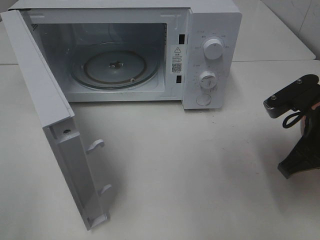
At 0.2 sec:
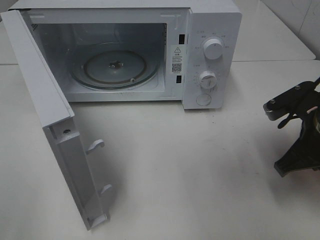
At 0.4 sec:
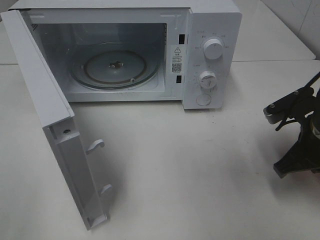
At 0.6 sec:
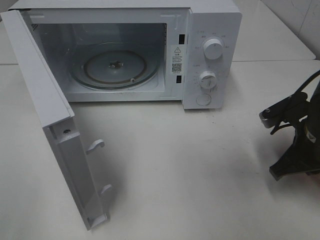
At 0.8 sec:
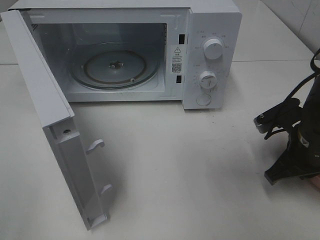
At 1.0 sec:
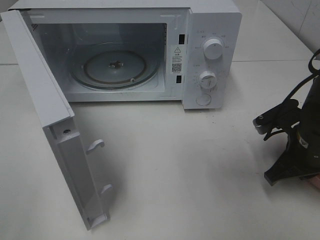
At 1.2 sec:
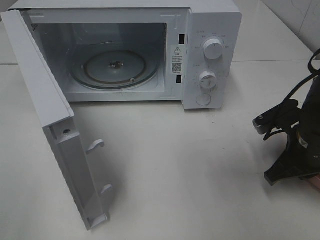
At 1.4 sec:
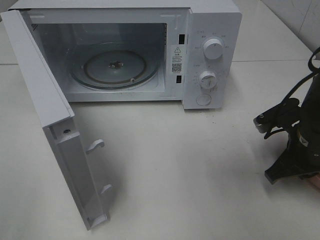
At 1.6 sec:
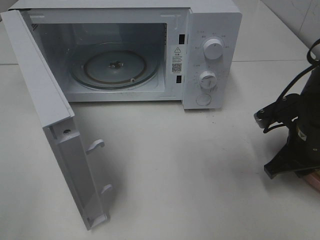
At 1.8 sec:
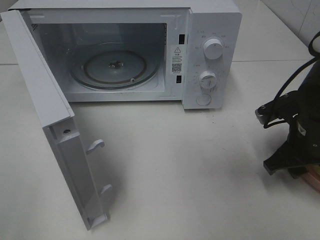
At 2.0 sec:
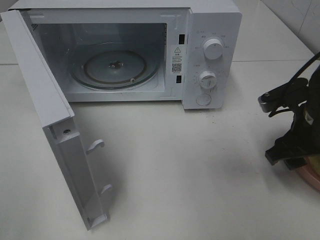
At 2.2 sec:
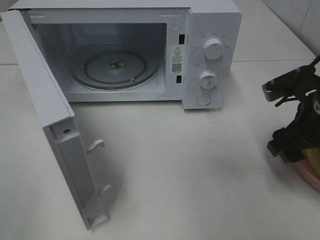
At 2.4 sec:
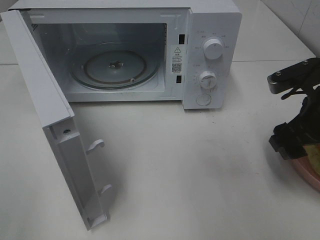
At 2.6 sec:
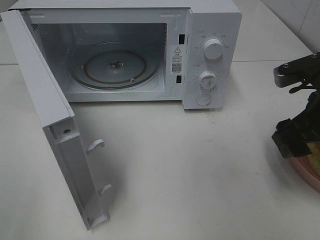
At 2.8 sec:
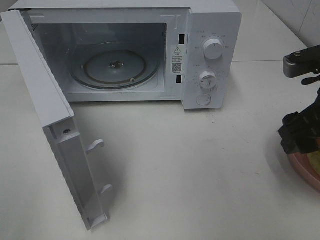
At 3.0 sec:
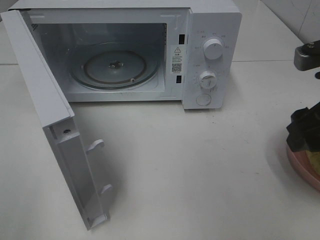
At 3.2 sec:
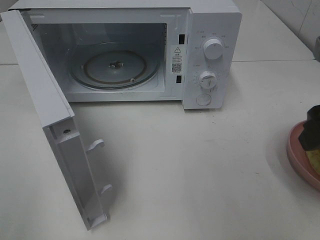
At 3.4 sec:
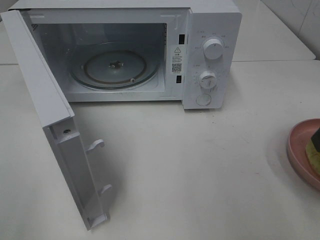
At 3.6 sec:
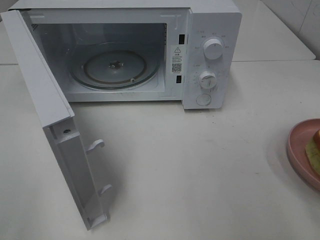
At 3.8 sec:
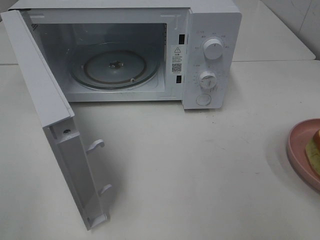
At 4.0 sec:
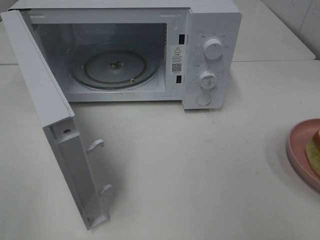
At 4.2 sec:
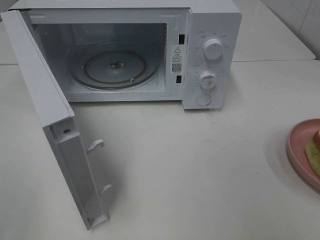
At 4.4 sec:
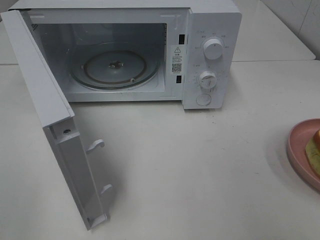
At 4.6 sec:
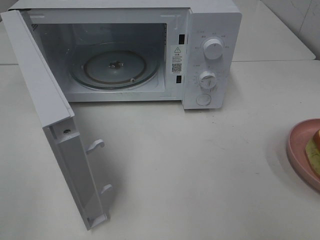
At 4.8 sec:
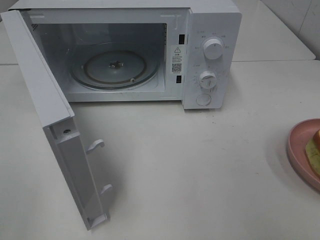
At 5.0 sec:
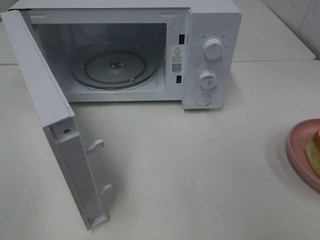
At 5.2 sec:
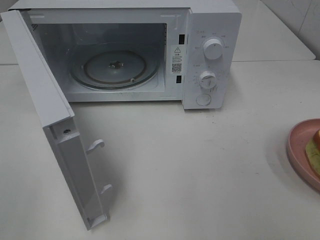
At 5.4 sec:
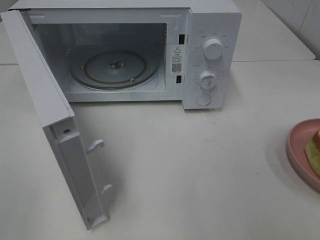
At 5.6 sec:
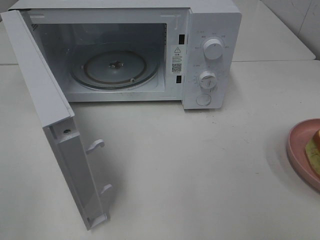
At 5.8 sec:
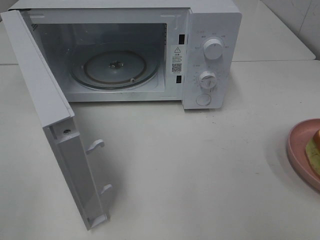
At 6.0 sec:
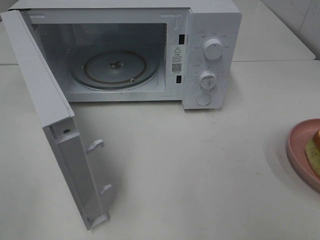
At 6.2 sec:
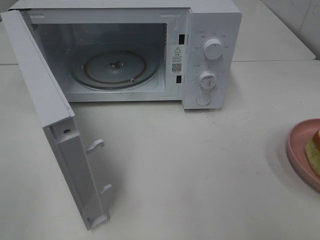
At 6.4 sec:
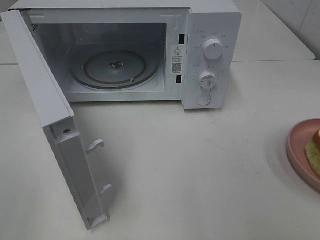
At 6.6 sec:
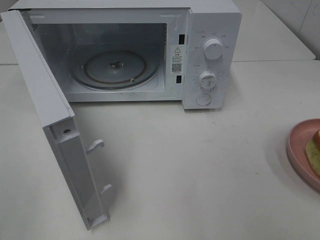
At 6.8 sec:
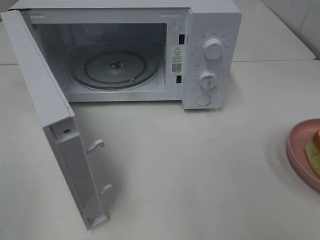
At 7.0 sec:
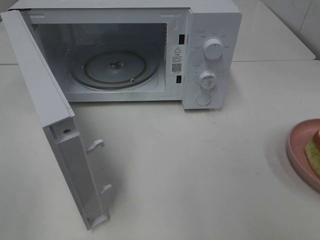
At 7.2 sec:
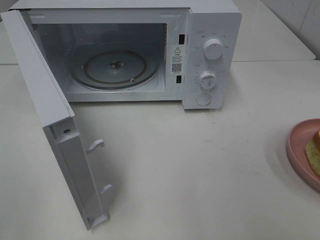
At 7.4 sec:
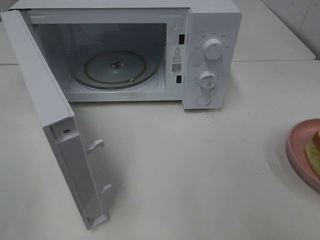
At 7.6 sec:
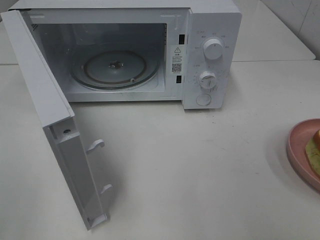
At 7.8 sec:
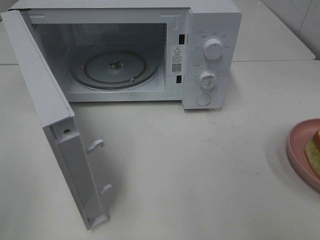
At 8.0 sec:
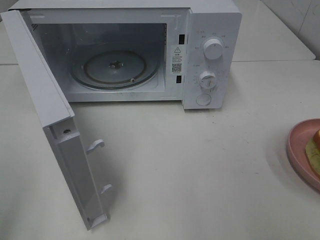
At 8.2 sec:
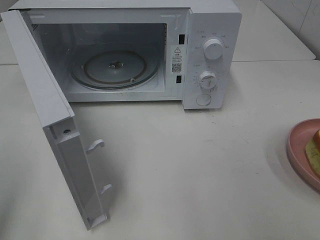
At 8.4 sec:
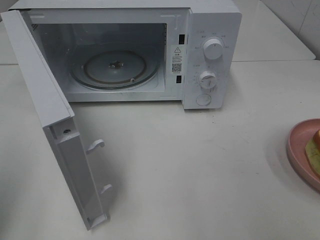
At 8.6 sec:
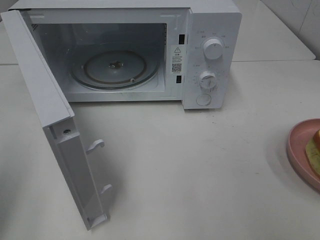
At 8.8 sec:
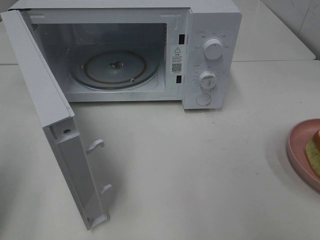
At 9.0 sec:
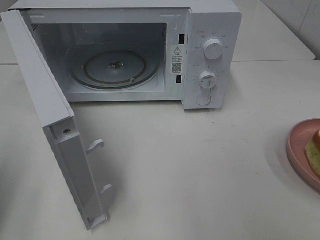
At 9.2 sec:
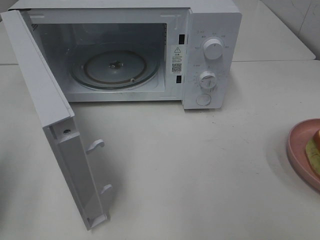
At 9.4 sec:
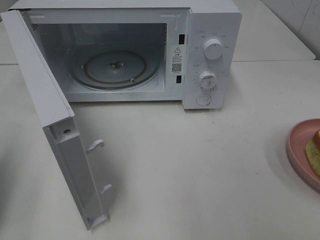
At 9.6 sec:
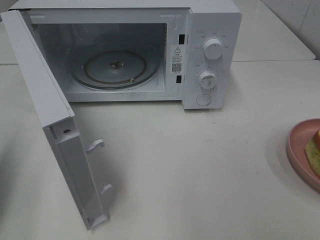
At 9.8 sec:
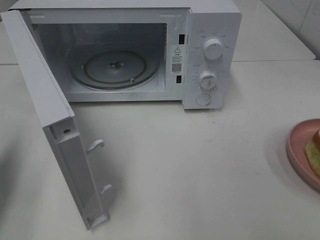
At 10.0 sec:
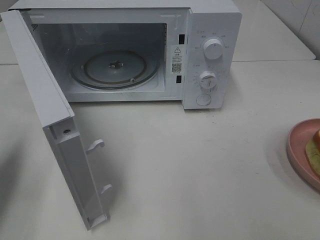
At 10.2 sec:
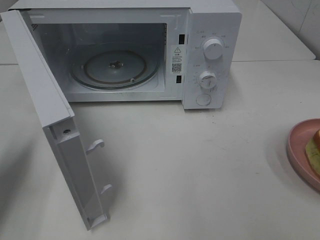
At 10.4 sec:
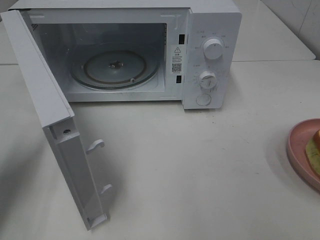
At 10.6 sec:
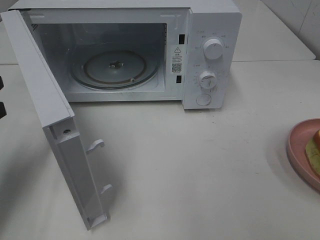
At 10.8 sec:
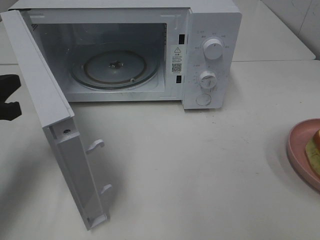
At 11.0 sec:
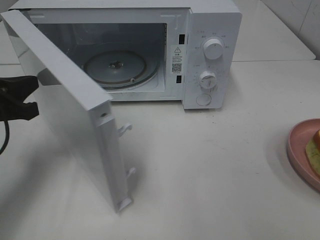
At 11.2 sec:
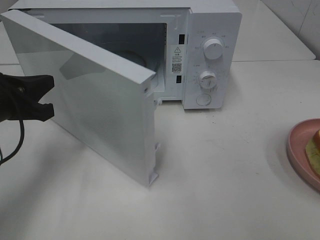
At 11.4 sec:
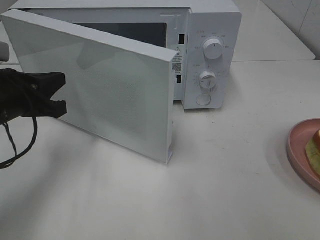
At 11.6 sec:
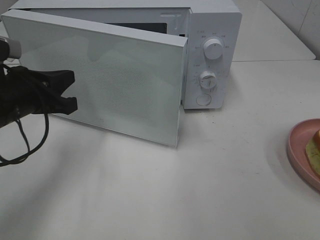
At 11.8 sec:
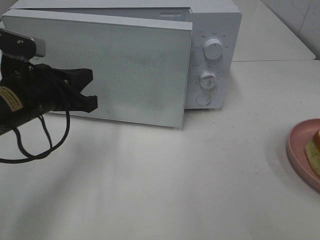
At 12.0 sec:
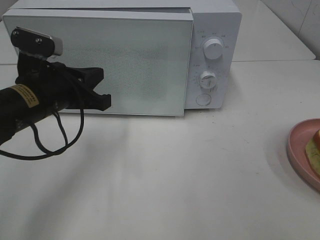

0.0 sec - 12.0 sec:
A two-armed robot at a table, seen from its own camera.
Task of the whole recording: Heat Sandwich.
Step, 0.0 sec - 2.4 sec: Right hand: place the plate on the table.
0.0 sec - 1.6 sec: The right gripper is displaced downward by some 5 cm.
1.6 sec - 3.0 sec: The right gripper goes some 15 cm upward and backward, and opens up.
3.0 sec - 4.4 sec: The right gripper shifts approximately 15 cm backward.
6.0 sec - 7.6 sec: The two grippers keep their place.
9.0 sec - 10.4 sec: The left gripper goes some 10 cm forward and downward.
10.4 sec - 12.0 sec: The left gripper shifts approximately 15 cm to the right.

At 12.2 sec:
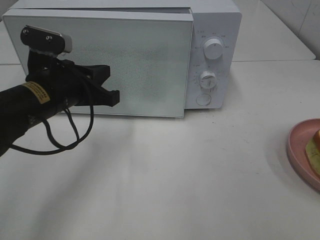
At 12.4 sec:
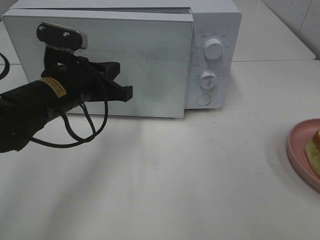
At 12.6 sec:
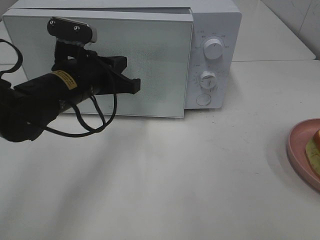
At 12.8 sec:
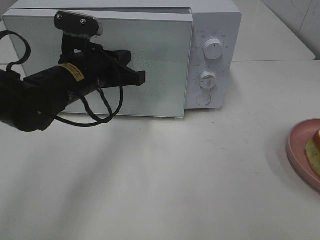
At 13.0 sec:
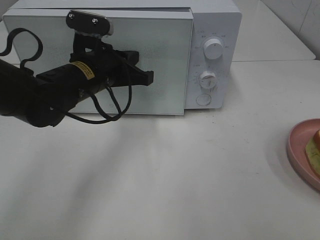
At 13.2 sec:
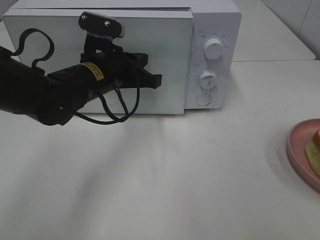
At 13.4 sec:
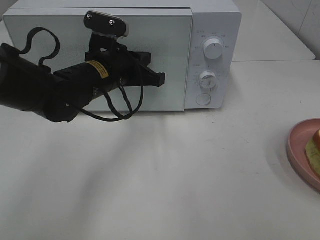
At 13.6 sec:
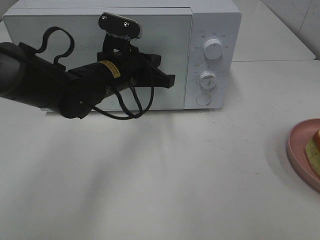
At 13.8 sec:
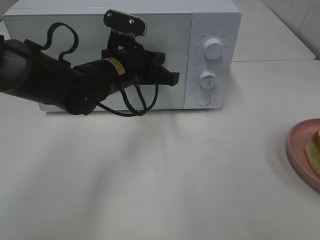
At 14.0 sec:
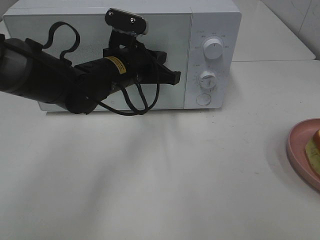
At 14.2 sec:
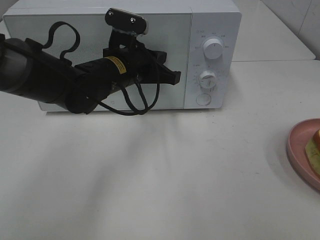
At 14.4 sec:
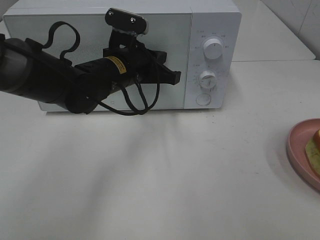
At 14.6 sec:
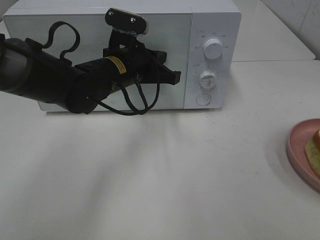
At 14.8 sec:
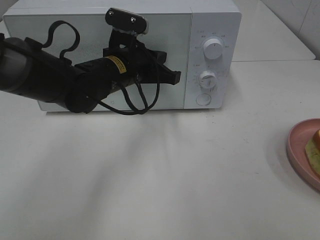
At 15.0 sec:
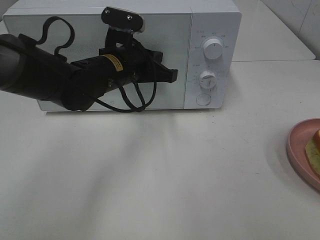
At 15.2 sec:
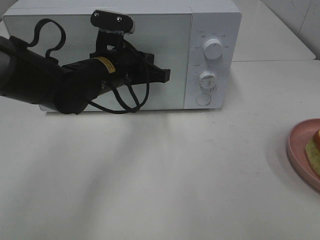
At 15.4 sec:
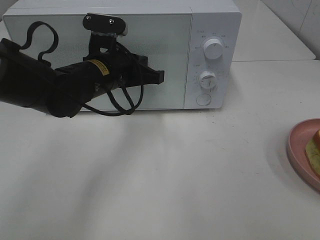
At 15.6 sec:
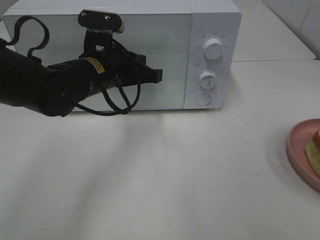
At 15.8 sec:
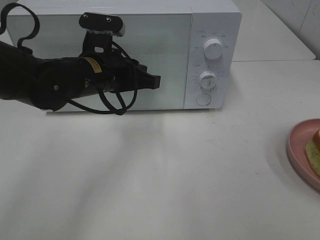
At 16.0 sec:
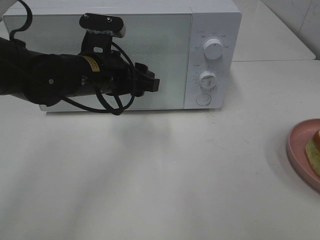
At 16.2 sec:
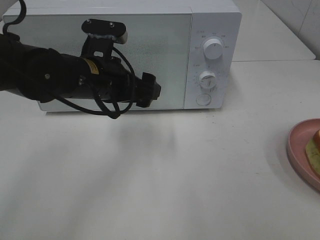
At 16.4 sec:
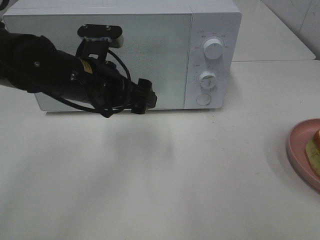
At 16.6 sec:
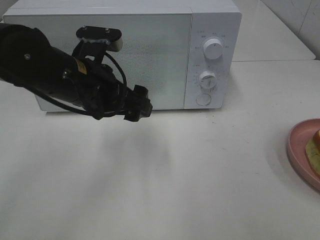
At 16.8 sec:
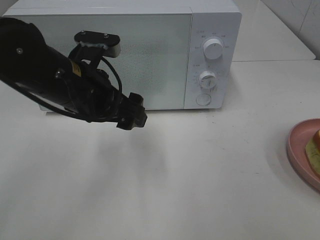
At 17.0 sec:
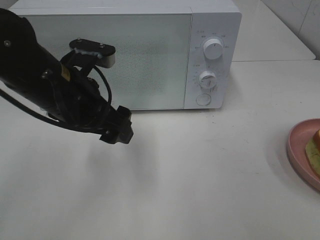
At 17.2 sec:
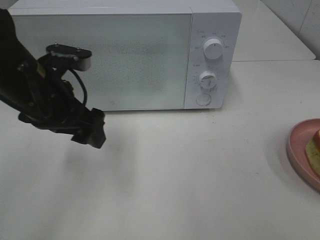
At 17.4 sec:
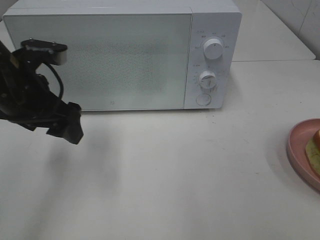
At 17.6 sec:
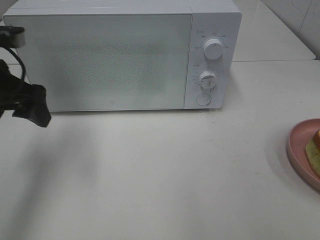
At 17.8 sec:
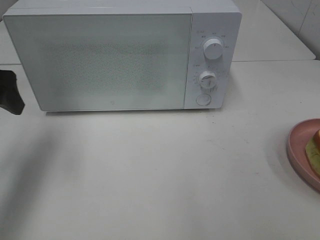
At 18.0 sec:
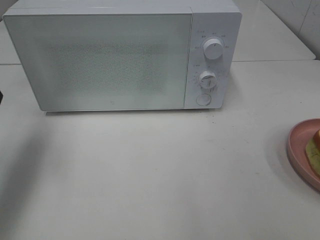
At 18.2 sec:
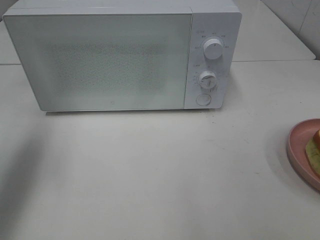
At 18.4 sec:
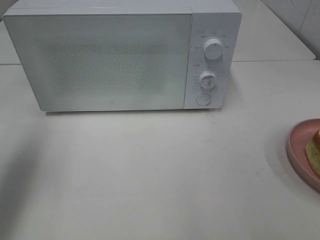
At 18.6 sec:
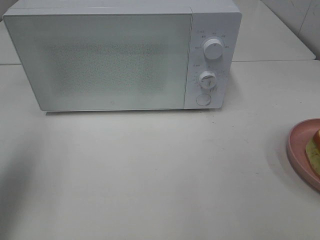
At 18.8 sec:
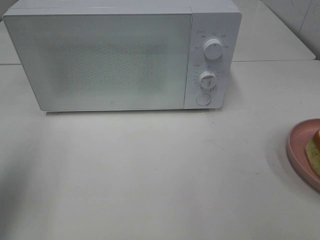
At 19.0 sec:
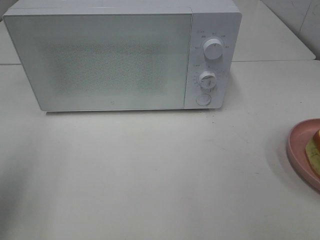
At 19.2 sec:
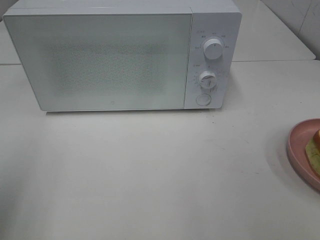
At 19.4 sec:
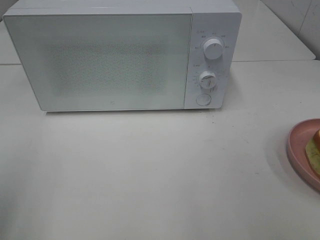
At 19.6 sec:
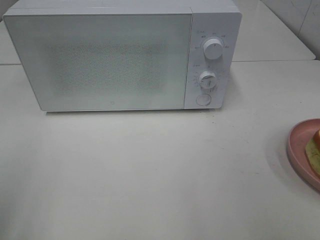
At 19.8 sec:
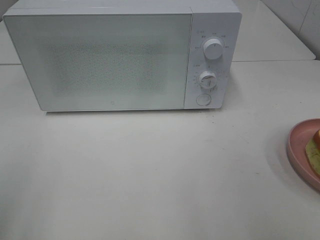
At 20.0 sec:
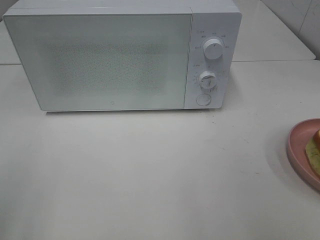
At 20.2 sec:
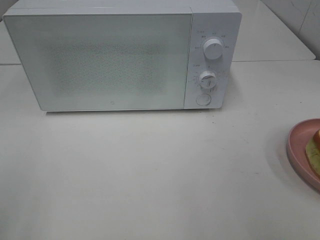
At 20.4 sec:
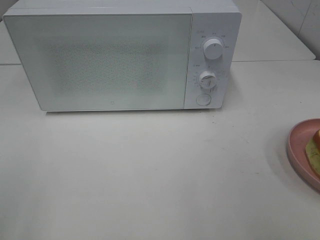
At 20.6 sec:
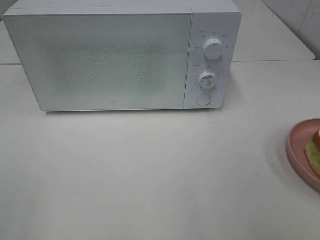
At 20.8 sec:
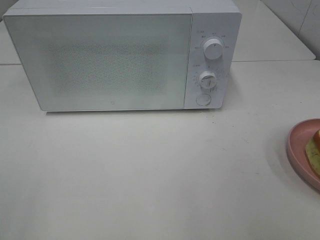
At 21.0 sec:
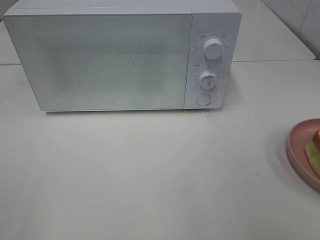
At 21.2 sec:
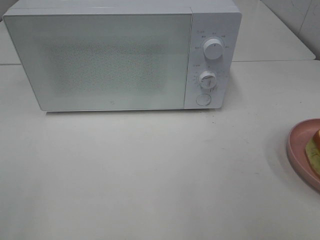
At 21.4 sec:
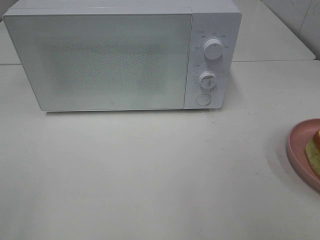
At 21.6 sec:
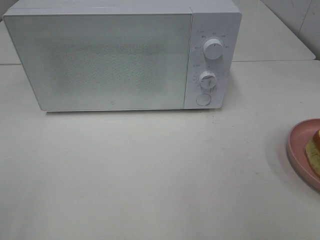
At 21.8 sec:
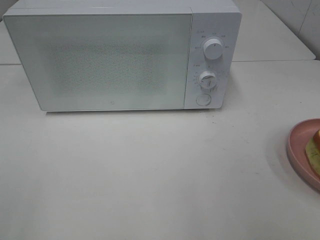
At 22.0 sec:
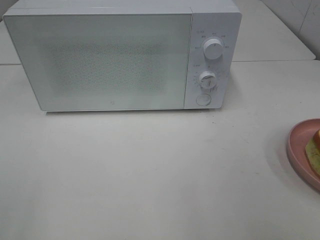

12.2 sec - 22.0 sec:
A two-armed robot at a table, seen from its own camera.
Task of the whole recording: Heat Sandwich.
Step, 12.2 sec - 15.6 sec: Left hand: close the microwave door.
12.2 sec - 13.6 sec: The left gripper travels to the right and forward by some 10 cm.
13.6 sec - 15.0 sec: Both grippers stay put.
15.0 sec - 16.4 sec: The left gripper moves backward, roughly 5 cm, and opens.
16.4 sec - 17.8 sec: The left gripper goes about 20 cm to the left.
17.8 sec - 19.2 sec: The left gripper goes approximately 15 cm backward.
19.2 sec - 20.6 sec: The left gripper moves backward, roughly 10 cm.
20.6 sec - 22.0 sec: Neither gripper changes place.
